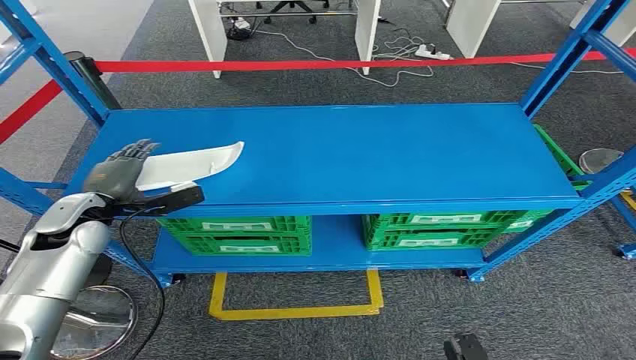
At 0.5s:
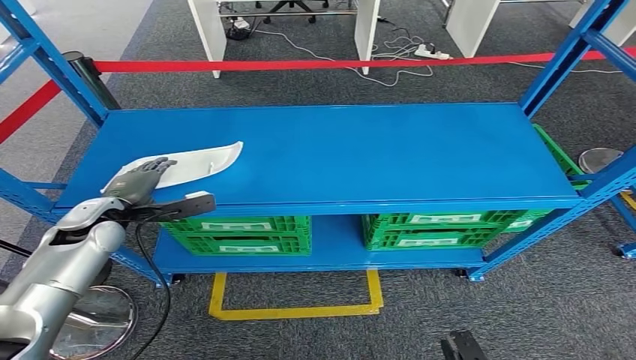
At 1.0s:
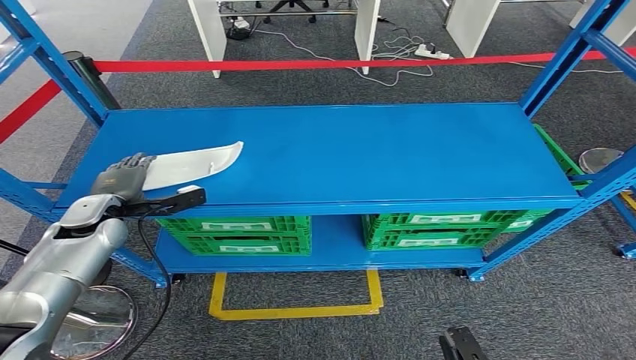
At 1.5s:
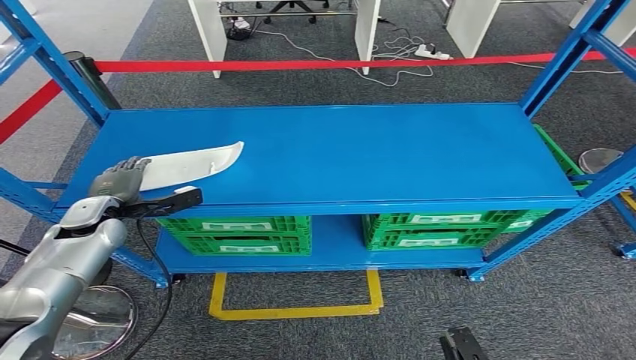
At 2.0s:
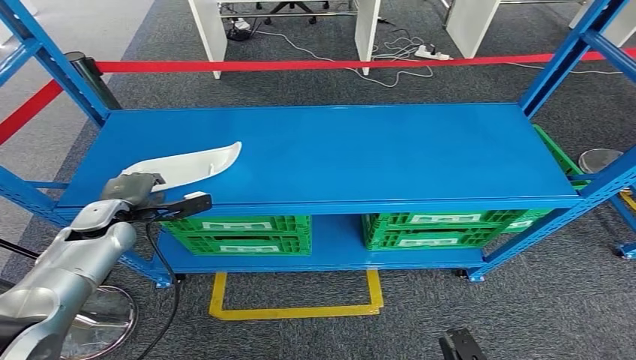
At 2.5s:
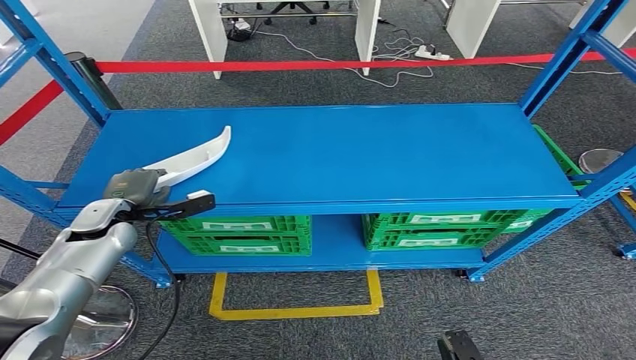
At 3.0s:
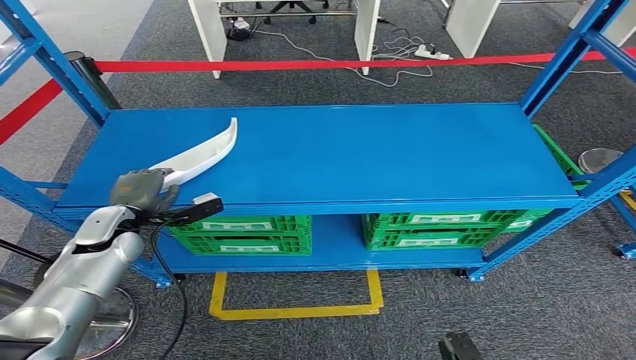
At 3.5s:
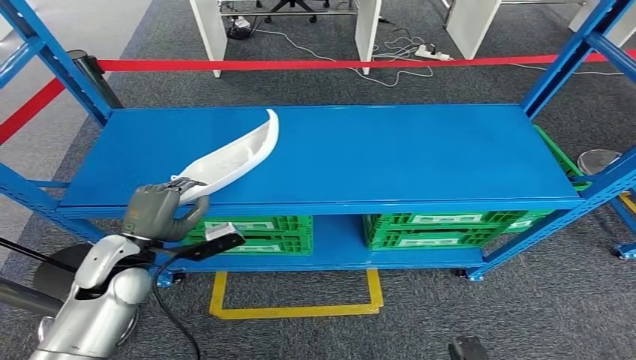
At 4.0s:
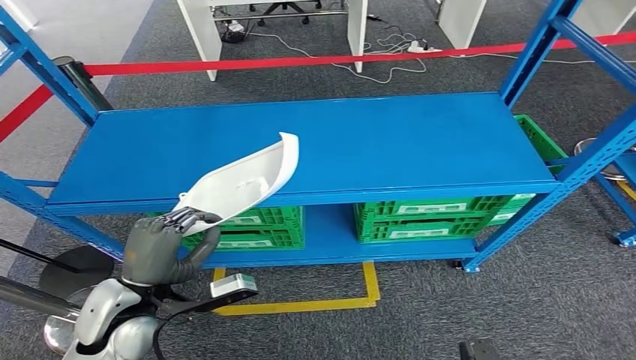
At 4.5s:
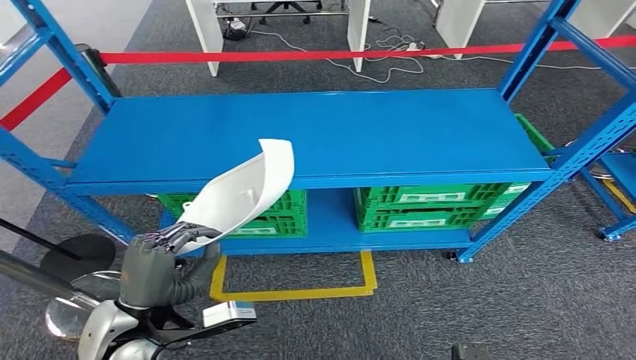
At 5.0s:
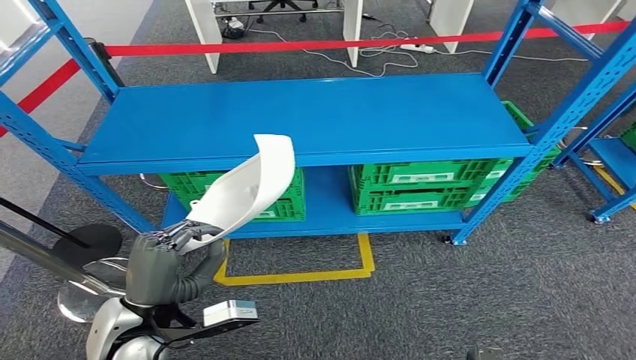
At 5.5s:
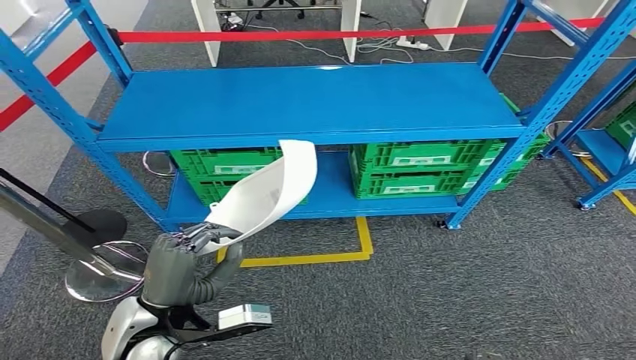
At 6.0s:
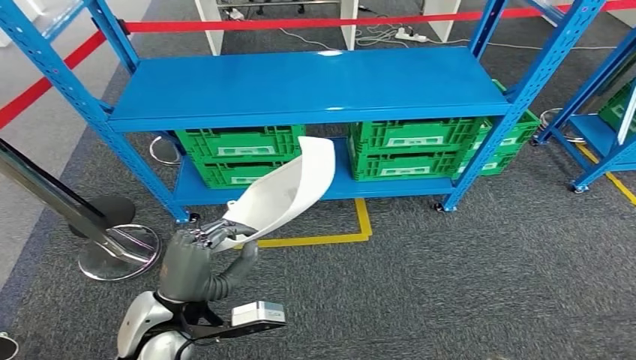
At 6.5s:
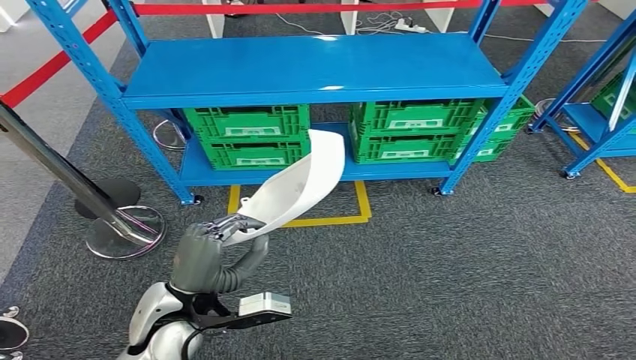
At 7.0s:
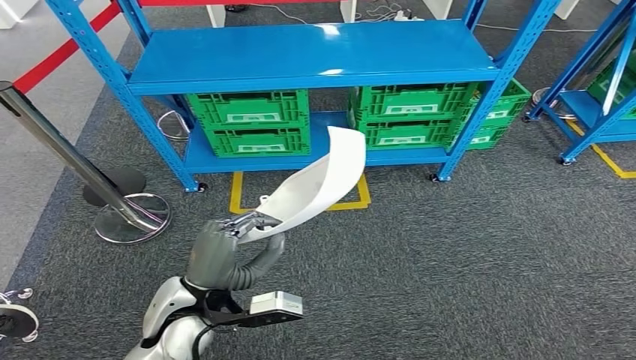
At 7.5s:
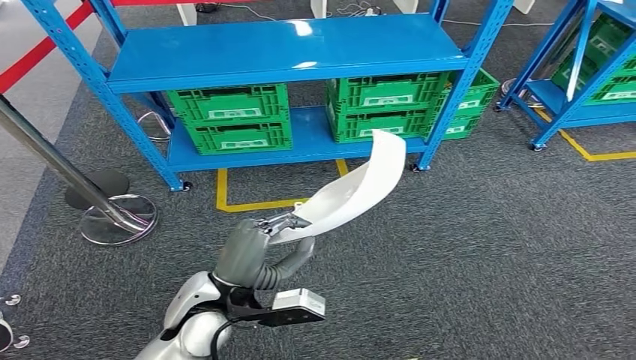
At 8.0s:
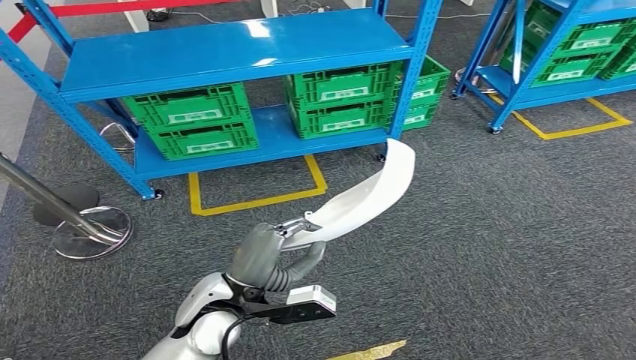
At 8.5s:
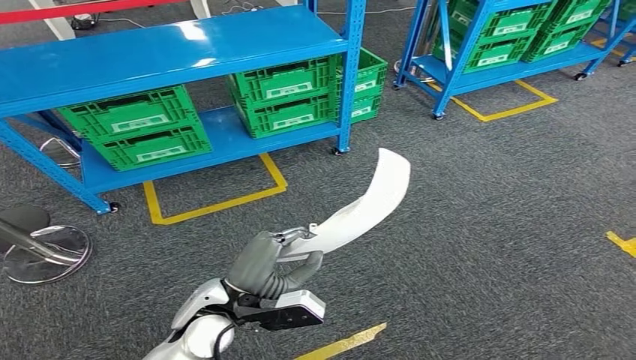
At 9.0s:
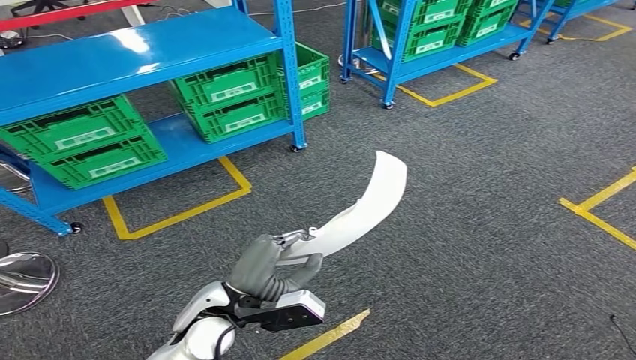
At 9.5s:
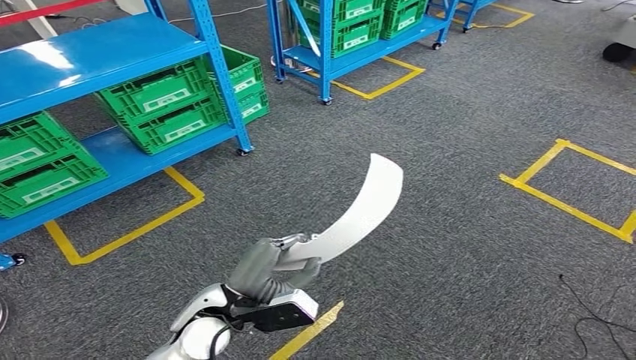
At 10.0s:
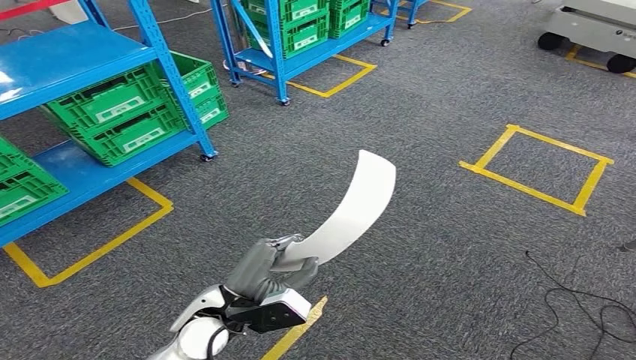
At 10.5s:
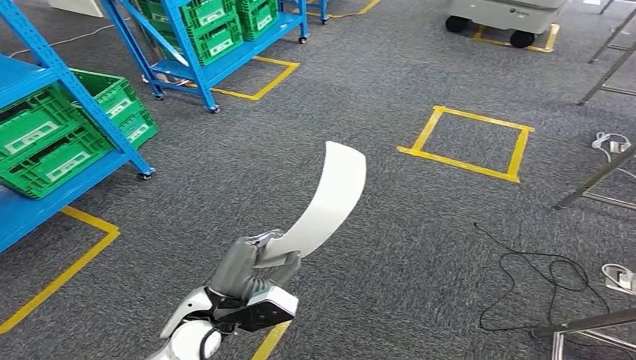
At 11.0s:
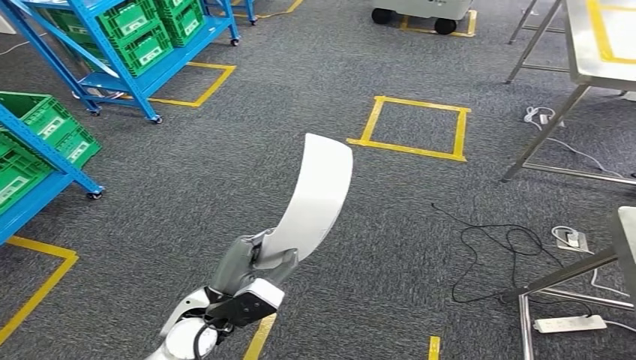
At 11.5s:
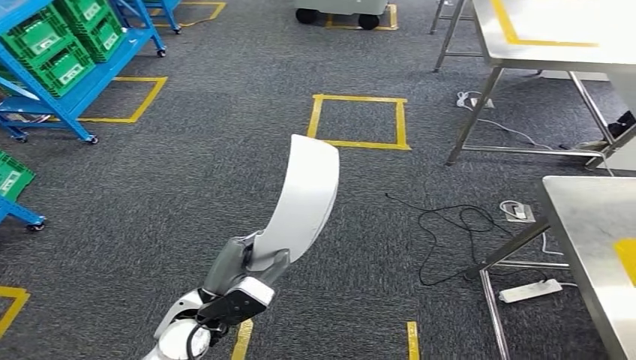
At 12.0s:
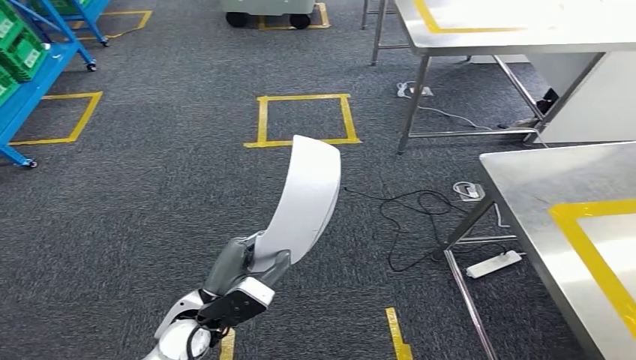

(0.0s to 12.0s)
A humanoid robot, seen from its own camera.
Step, 0.0s - 5.5s: Pick up the small component from the shelf.

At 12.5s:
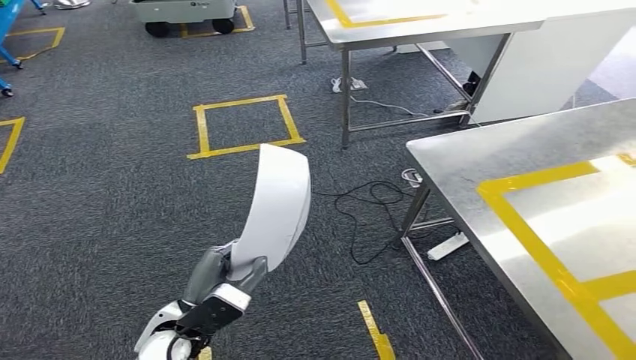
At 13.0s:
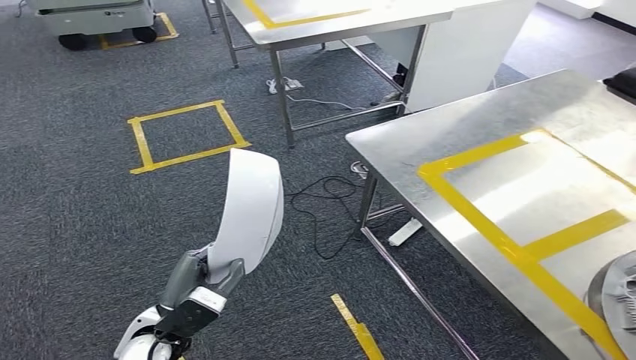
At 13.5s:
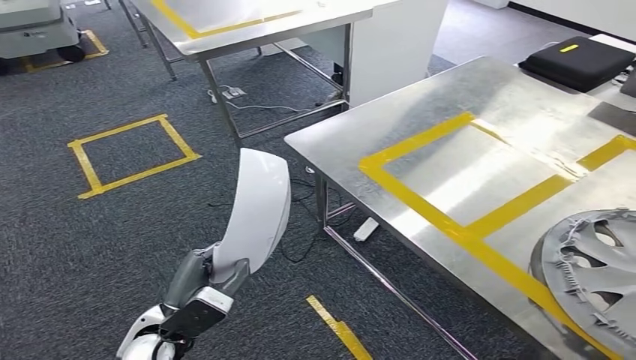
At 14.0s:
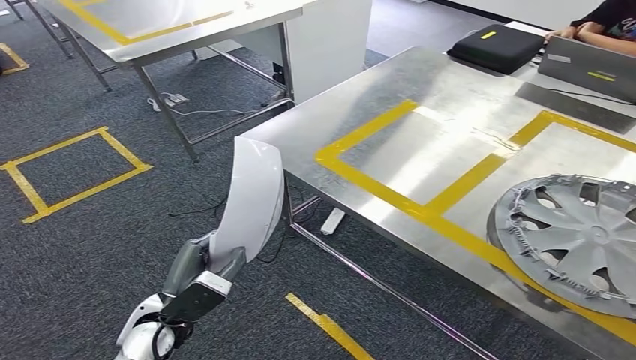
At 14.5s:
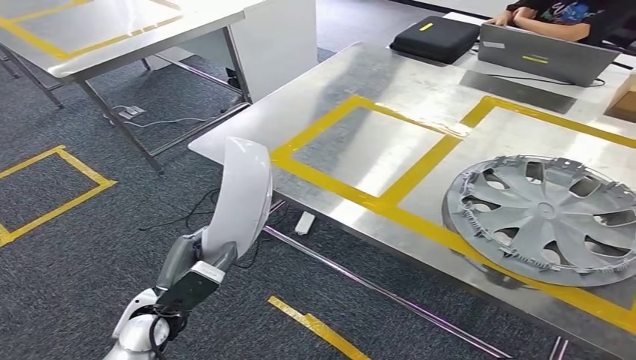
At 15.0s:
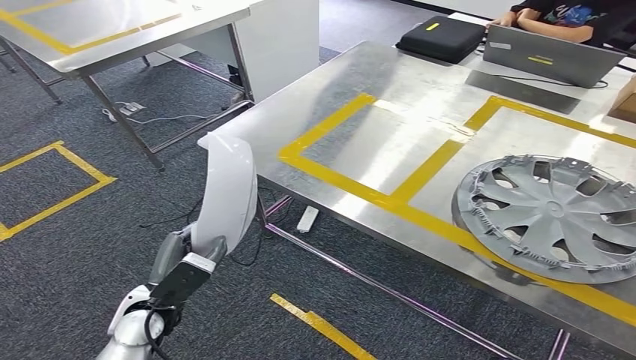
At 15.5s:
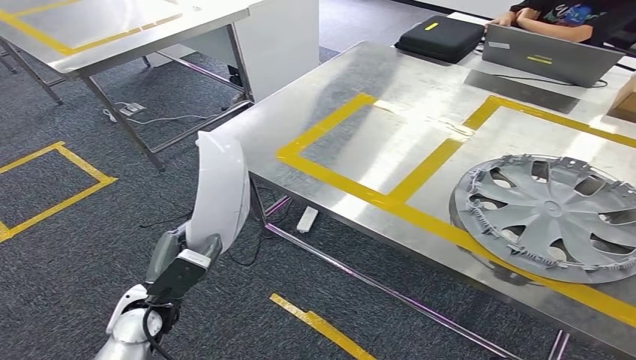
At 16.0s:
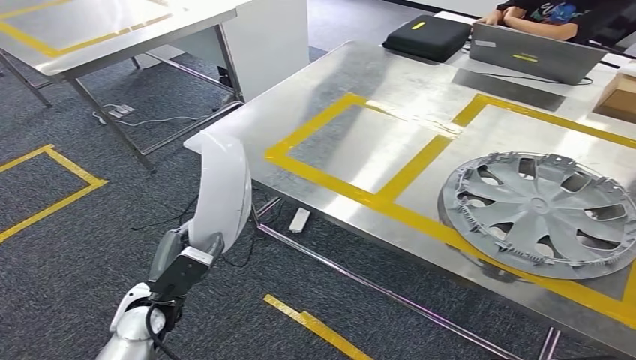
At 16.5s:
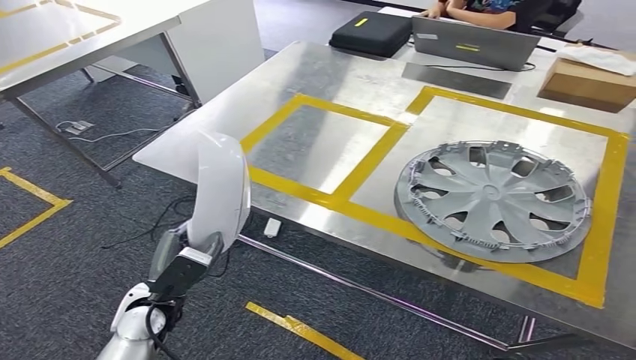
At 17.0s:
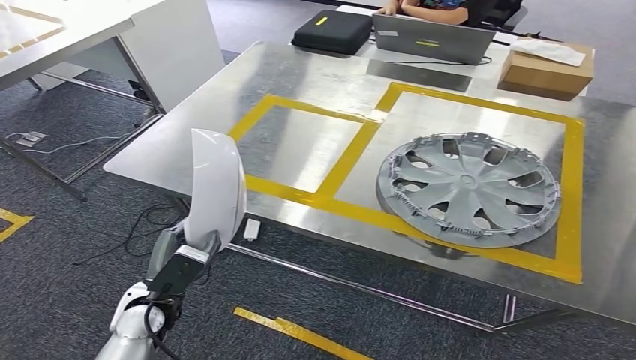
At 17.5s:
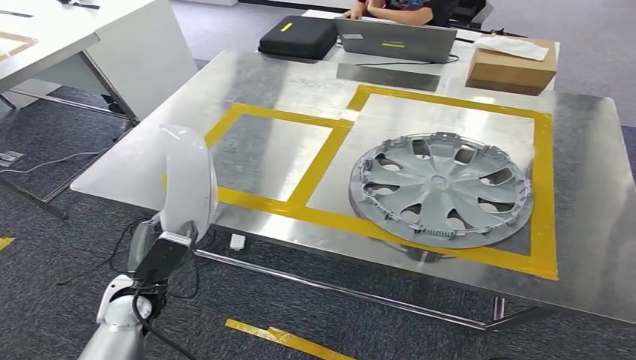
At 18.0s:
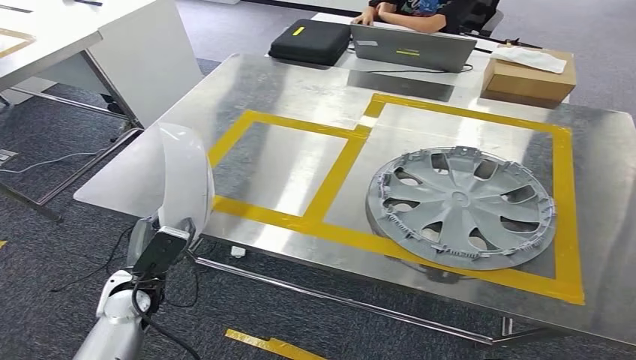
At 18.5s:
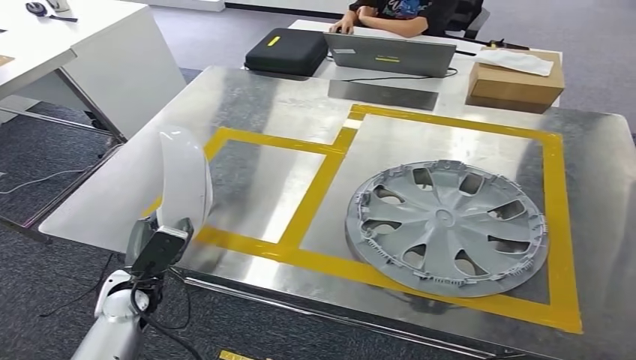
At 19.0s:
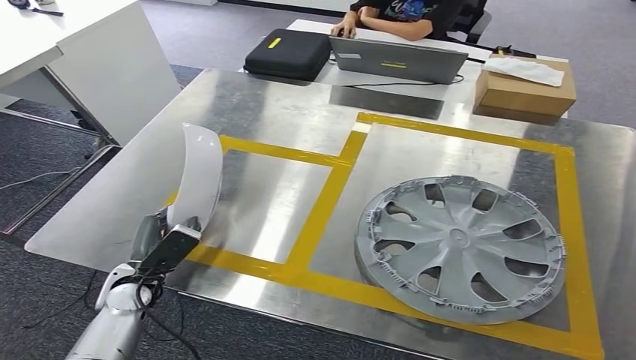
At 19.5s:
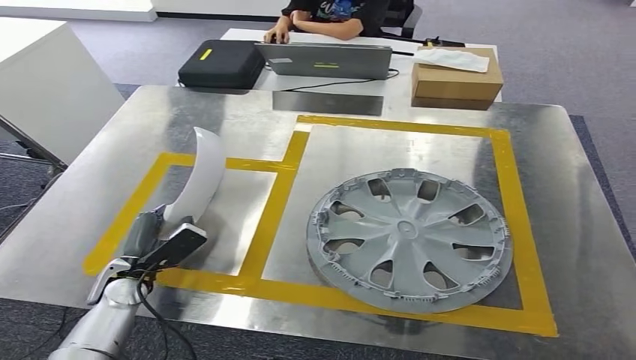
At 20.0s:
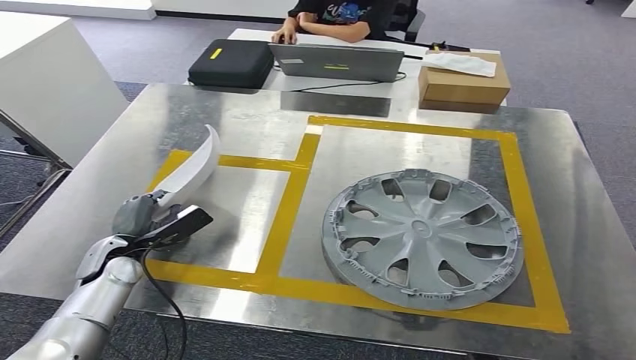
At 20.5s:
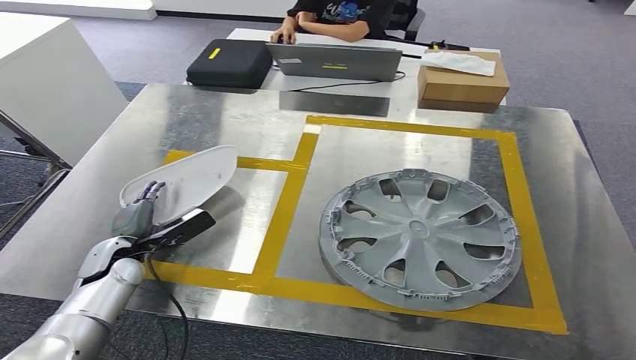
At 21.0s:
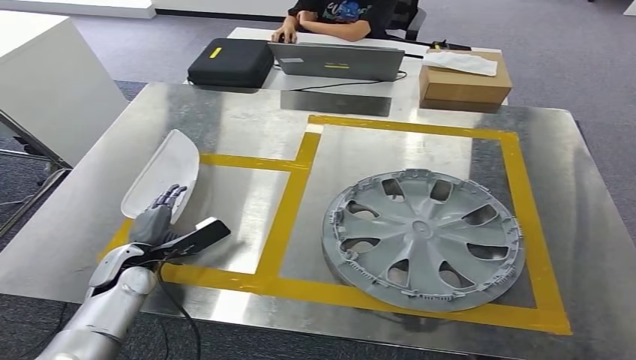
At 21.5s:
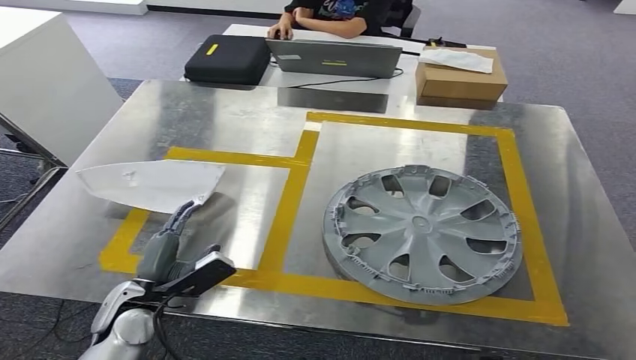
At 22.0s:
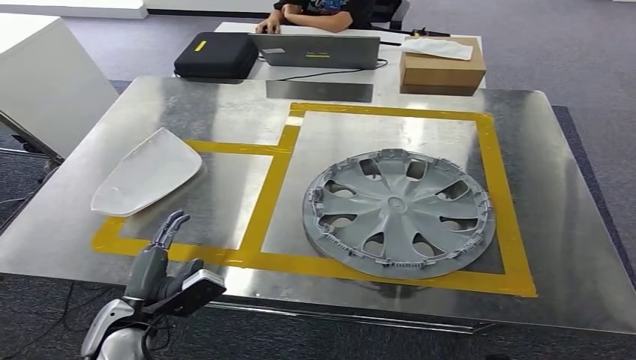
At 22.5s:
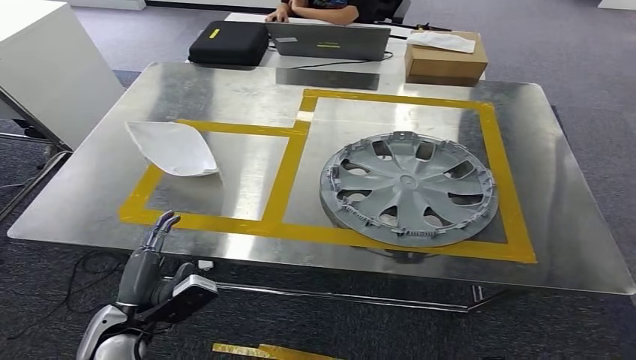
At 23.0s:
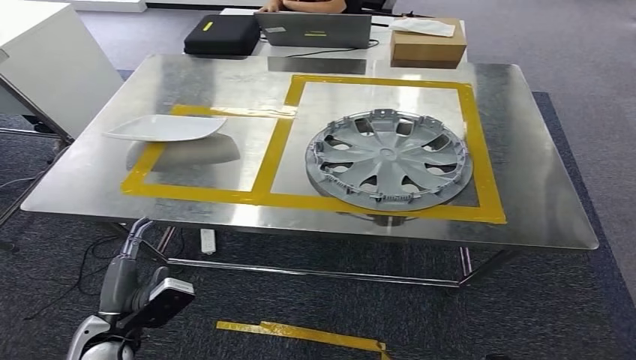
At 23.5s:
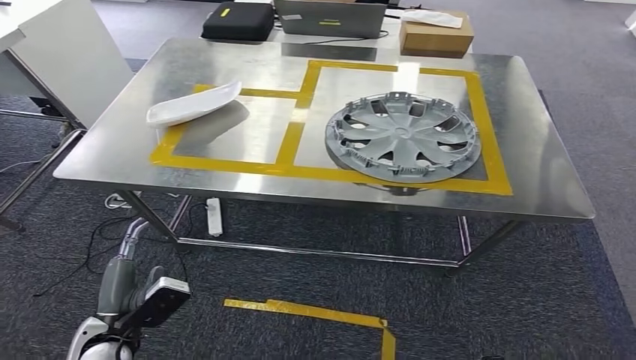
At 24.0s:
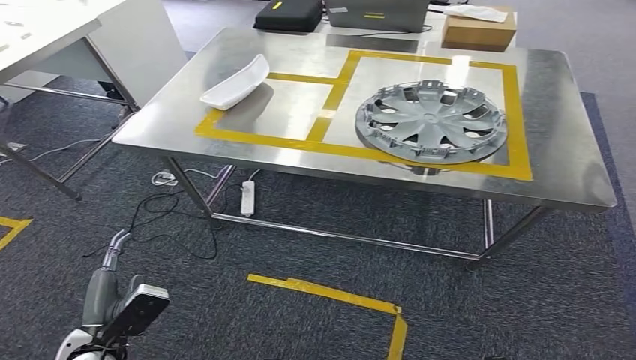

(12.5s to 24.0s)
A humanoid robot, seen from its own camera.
Step, 12.5s - 17.0s: Move the small component to the workbench.
Step, 17.5s - 22.5s: Insert the small component into the corresponding slot on the workbench.
